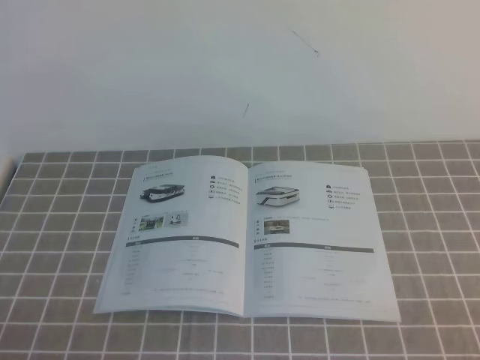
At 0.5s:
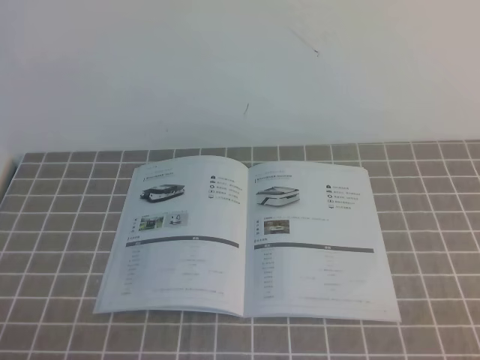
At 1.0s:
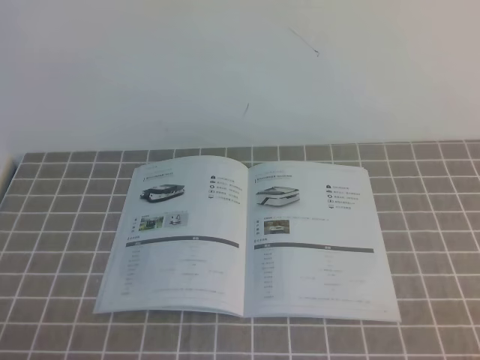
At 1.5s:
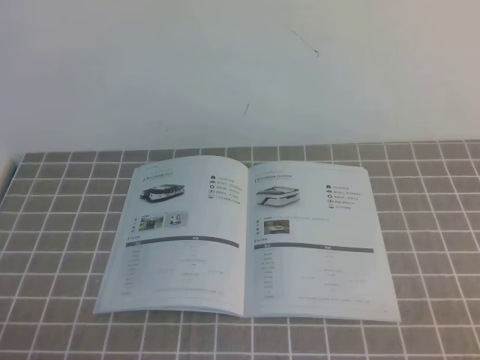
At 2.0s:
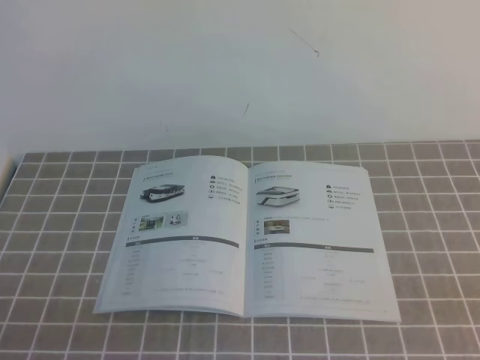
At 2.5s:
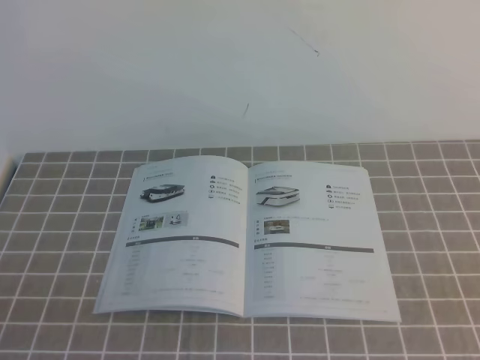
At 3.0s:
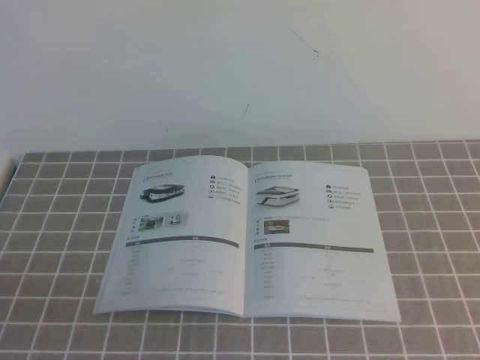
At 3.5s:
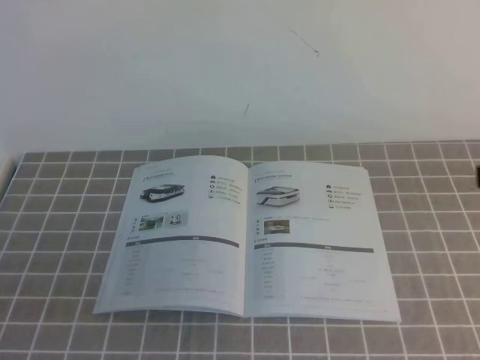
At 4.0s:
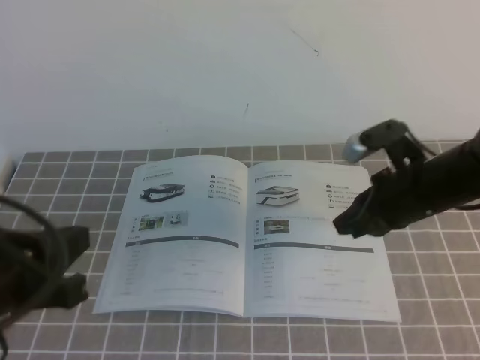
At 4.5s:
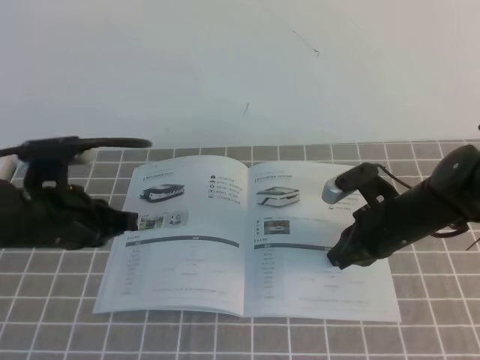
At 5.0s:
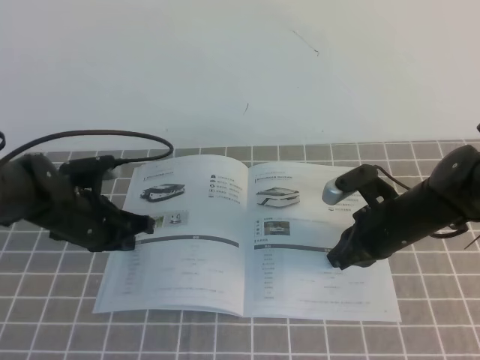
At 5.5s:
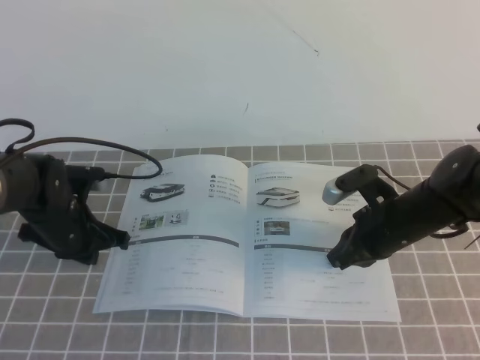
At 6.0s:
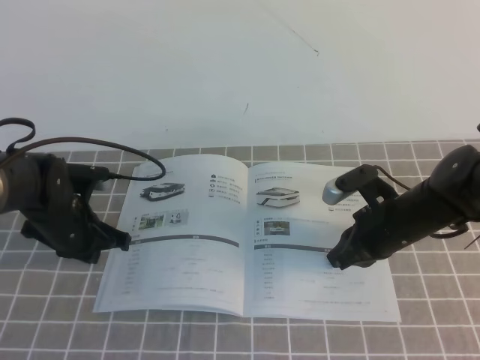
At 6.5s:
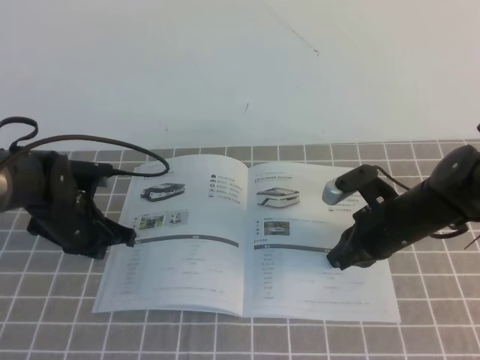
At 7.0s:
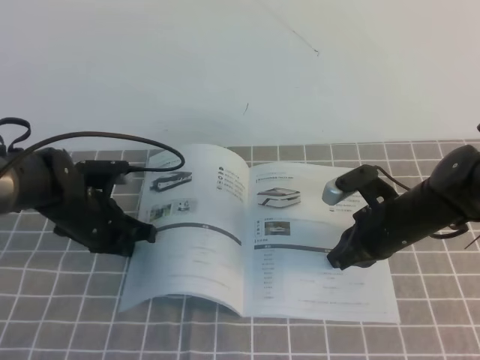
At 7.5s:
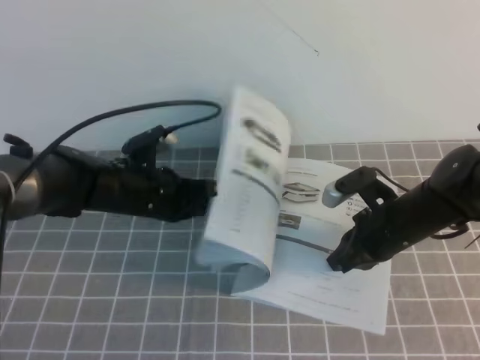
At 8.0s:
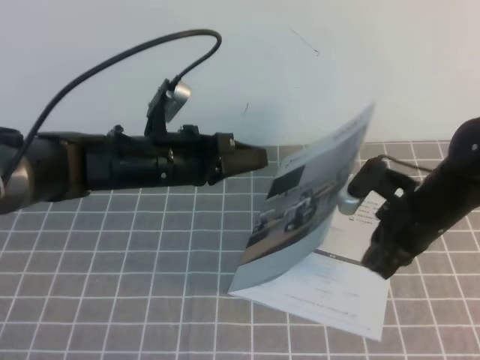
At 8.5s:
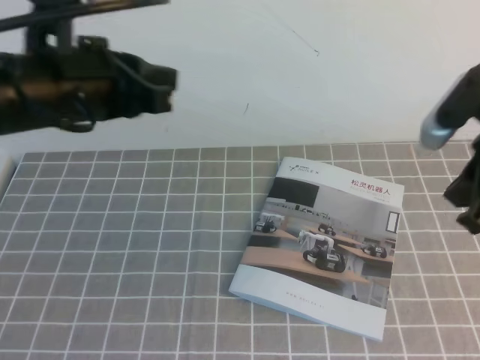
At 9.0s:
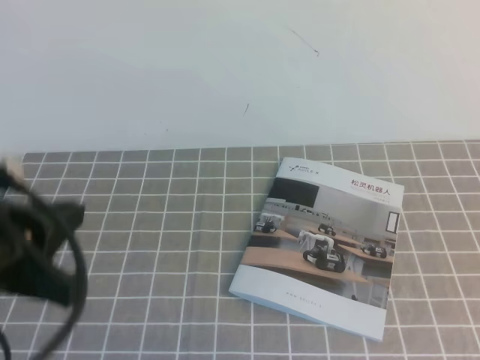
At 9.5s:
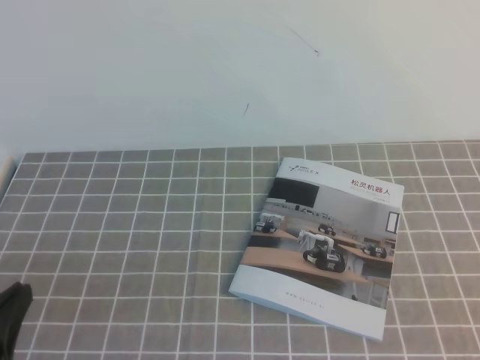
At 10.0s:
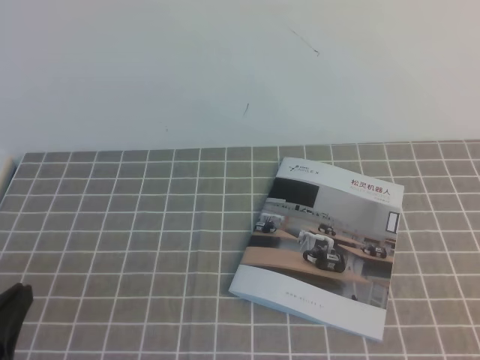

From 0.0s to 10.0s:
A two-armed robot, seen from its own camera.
Task of the whole recording: on the grey tablecloth, hold the book with one hand and close it with the other.
From 2.0s to 4.0s: The right gripper moves forward and to the left, approximately 30 cm, while the left gripper is displaced forward and upward by roughly 15 cm.
From 4.0s to 6.0s: The right gripper is displaced downward by some 10 cm. The left gripper heads forward and downward, covering some 25 cm.
From 6.0s to 8.0s: The left gripper travels to the right and upward by roughly 15 cm. Meanwhile the right gripper ends up roughly 5 cm from where it was.
From 8.0s to 10.0s: The right gripper is displaced backward by some 30 cm; the left gripper travels backward and to the left by approximately 30 cm.
